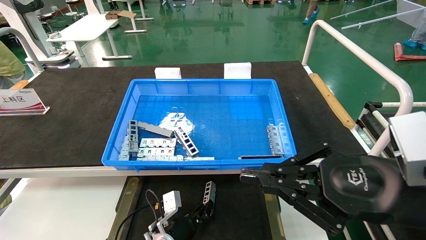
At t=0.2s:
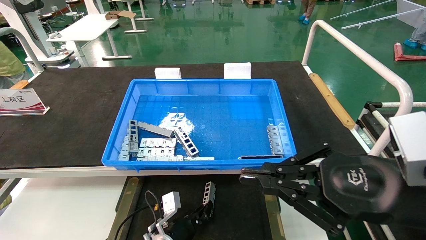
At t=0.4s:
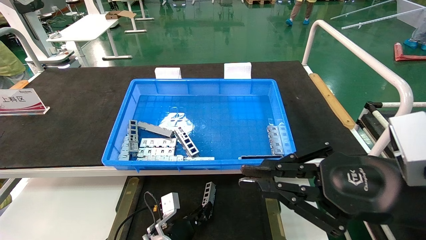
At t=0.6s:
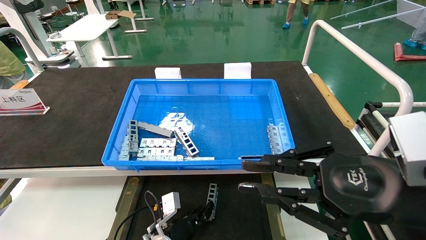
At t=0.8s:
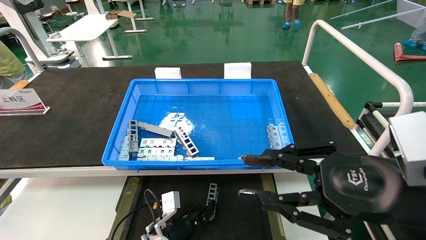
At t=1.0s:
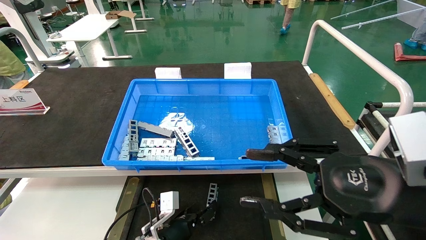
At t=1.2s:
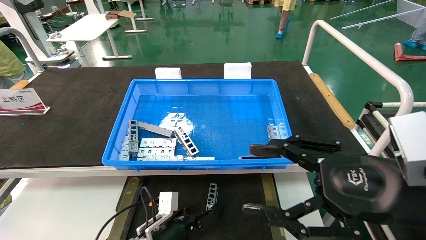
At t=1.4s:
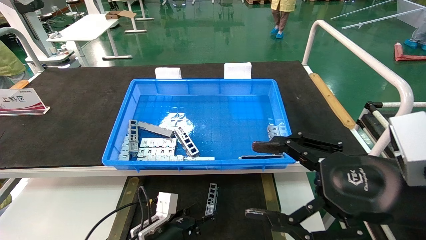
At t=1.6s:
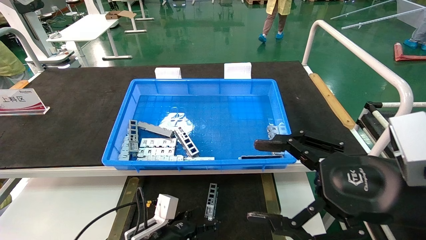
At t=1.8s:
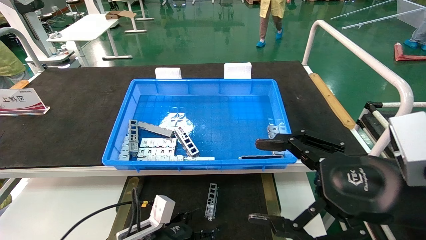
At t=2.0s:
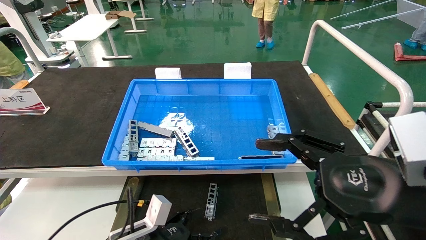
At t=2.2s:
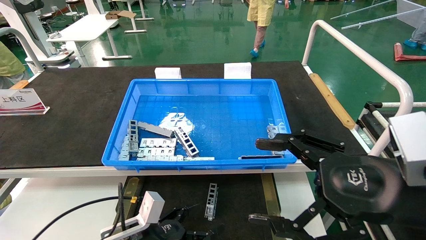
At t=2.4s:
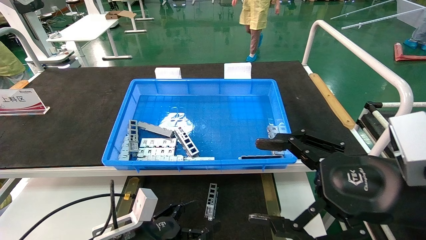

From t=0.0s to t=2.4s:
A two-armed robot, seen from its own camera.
Task of the whole recording: Grasp the part with one hand and place it on the black container.
From t=0.0s to t=1.2s: The left gripper moves about 5 cm, and opens up; the right gripper opens.
From t=1.2s to t=2.4s: The left gripper heads backward, upward and to the left, covering roughly 10 cm, while the right gripper opens its fingers.
